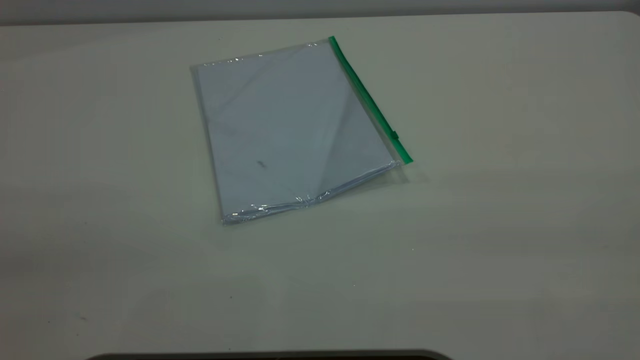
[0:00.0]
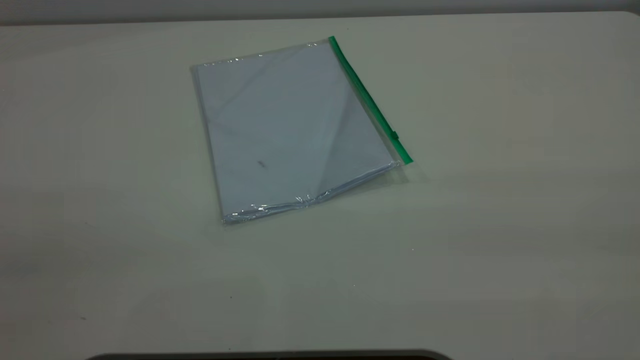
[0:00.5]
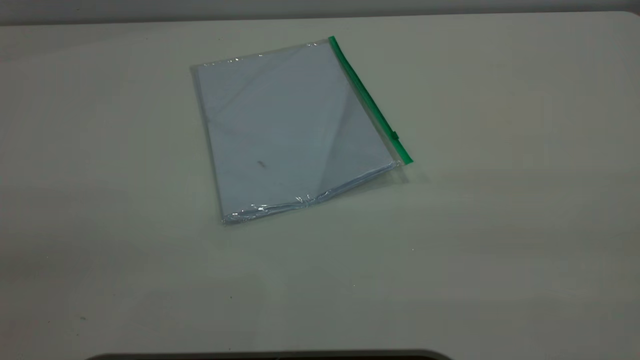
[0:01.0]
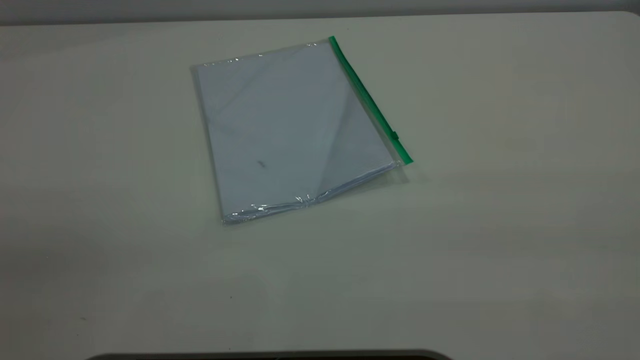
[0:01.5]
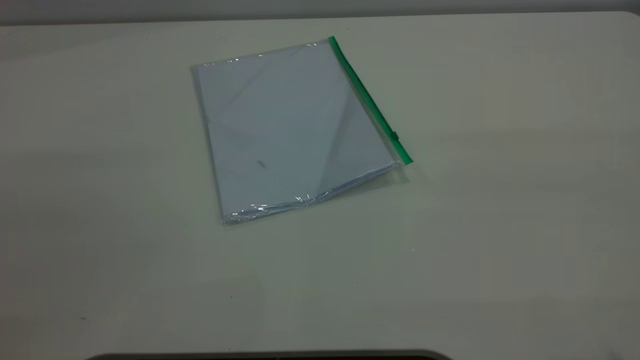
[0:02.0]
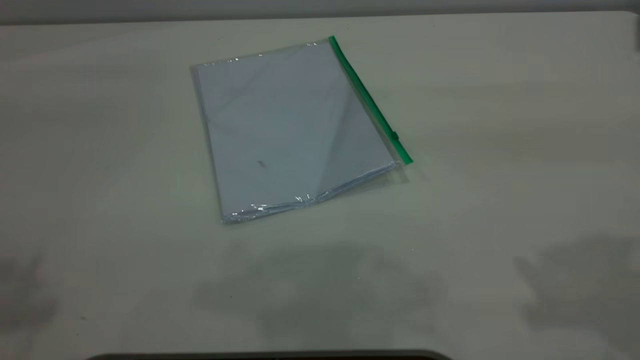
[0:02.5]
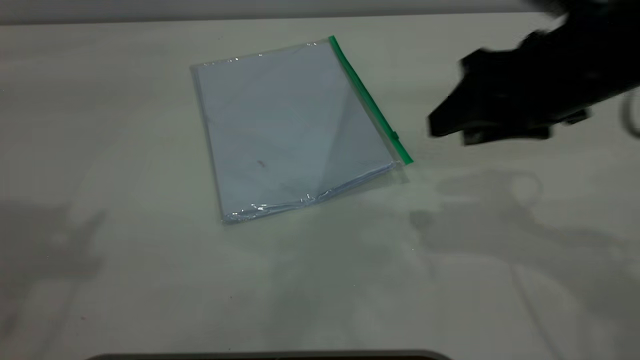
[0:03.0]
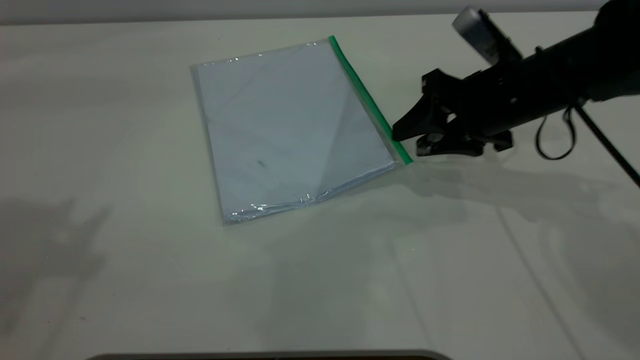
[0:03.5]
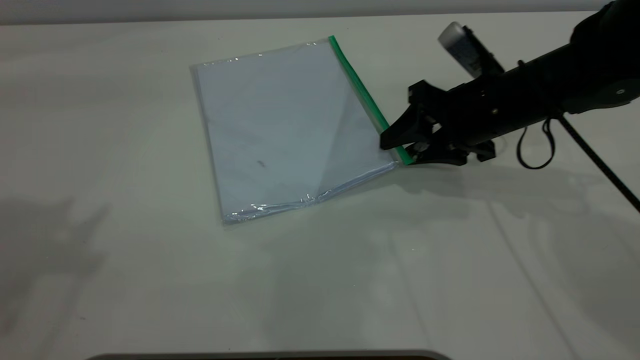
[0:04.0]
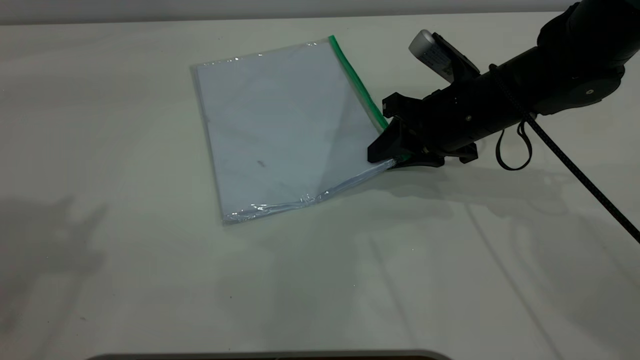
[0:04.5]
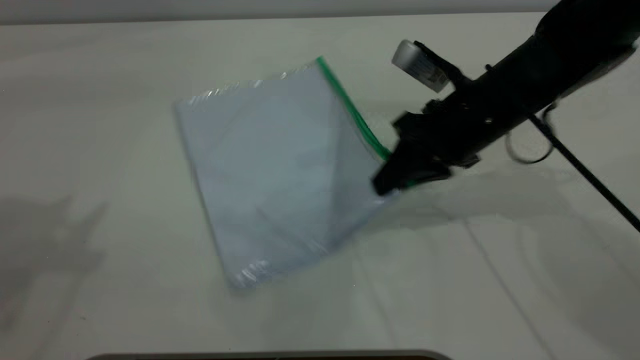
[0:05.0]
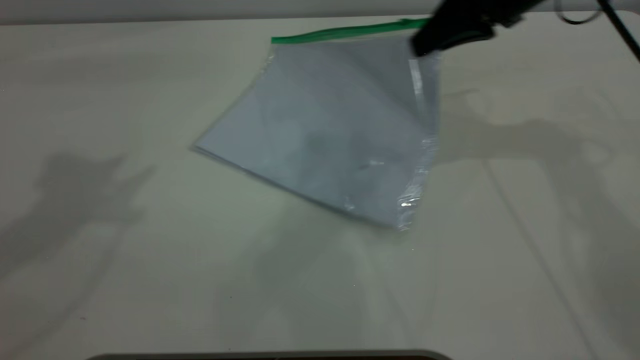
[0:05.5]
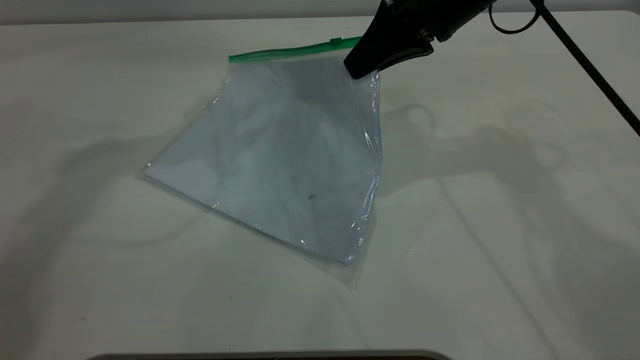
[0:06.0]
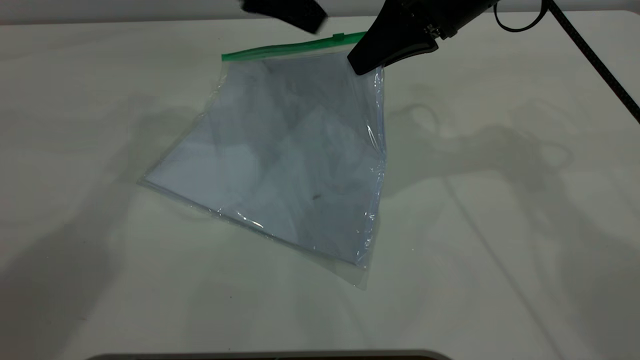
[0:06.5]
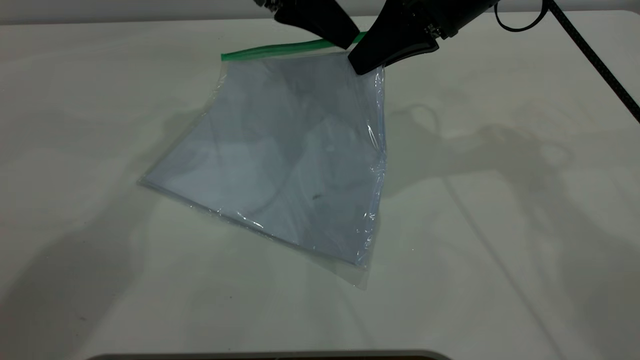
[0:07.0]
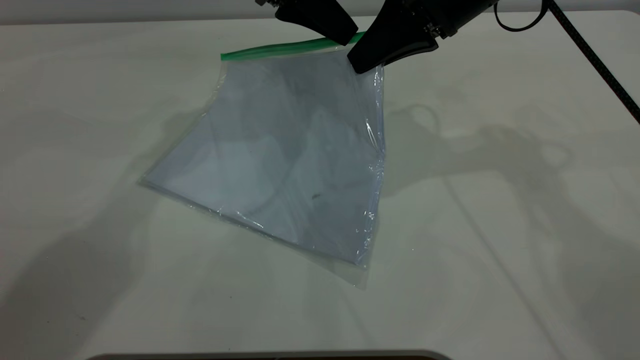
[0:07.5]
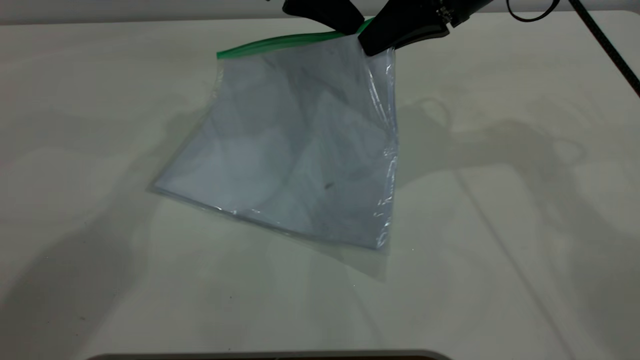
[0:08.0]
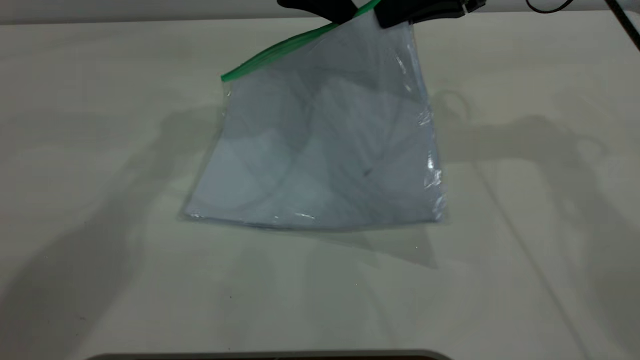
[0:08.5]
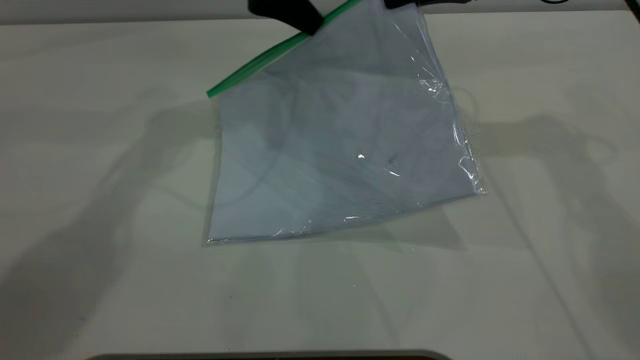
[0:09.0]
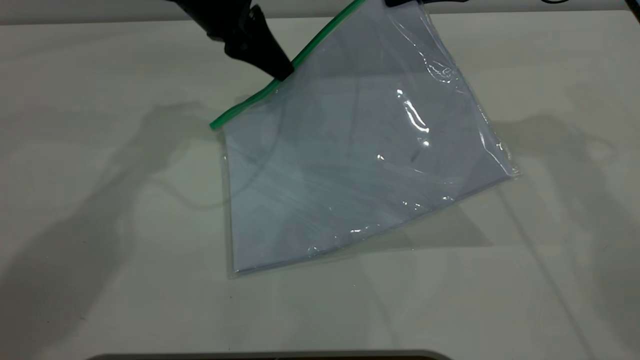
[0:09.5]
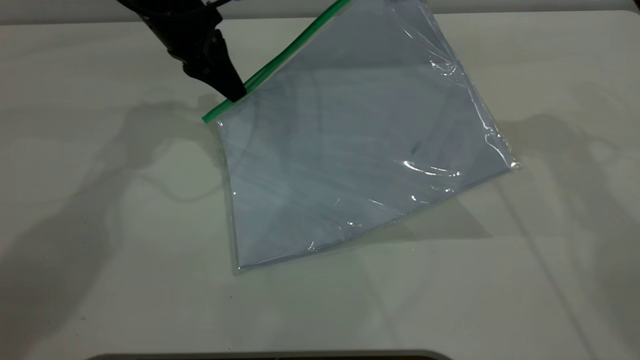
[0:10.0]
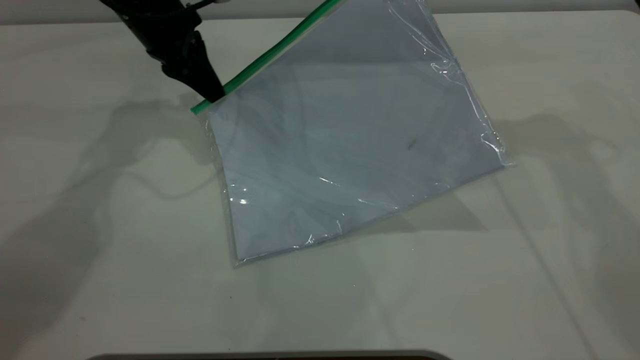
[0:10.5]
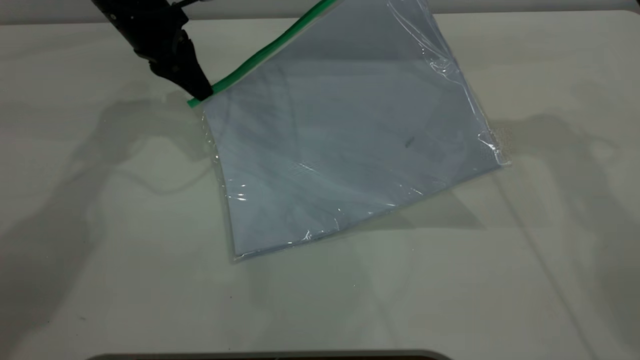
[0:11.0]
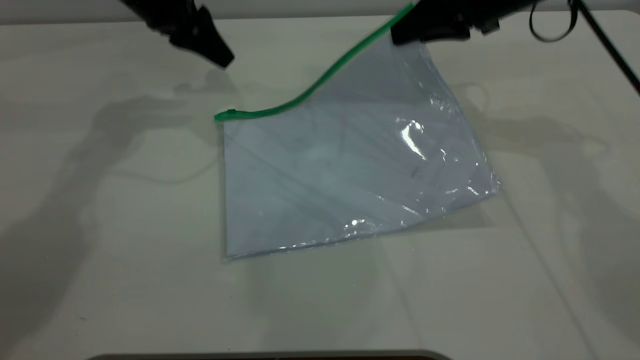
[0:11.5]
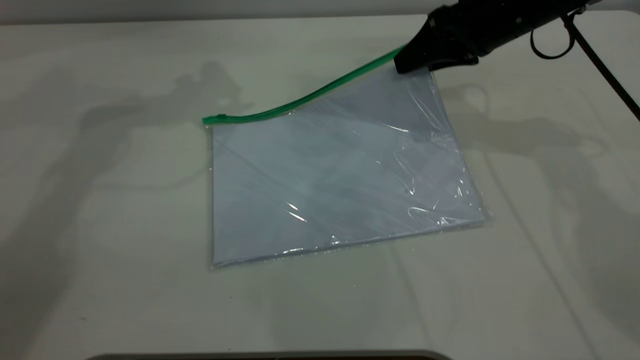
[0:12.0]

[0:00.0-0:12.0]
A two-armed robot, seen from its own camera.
Step, 0:00.0 to 0:05.0: Pick up the transparent plastic bag with the right gripper.
Step, 0:05.5 to 0:11.0: Pulling up the zipper on the transparent plastic bag with the left gripper to close it.
0:02.0 to 0:04.0: The left gripper is displaced forward by roughly 20 cm; the right gripper goes about 40 cm forward and downward.
0:04.0 to 0:06.0: The right gripper goes roughly 15 cm upward, and closes its fingers; the left gripper shifts approximately 25 cm forward, to the right and downward.
0:06.0 to 0:08.0: The left gripper goes roughly 10 cm to the right and downward, and closes its fingers.
0:08.0 to 0:10.0: The left gripper goes roughly 10 cm to the left and downward.
0:10.0 to 0:12.0: The left gripper is displaced upward by about 15 cm, and opens its fingers; the right gripper shifts some 10 cm downward, and opens its fingers.
